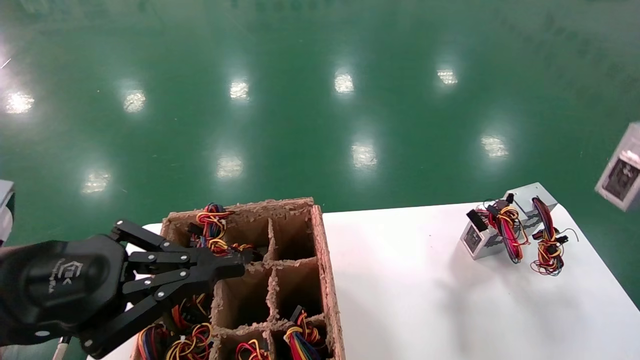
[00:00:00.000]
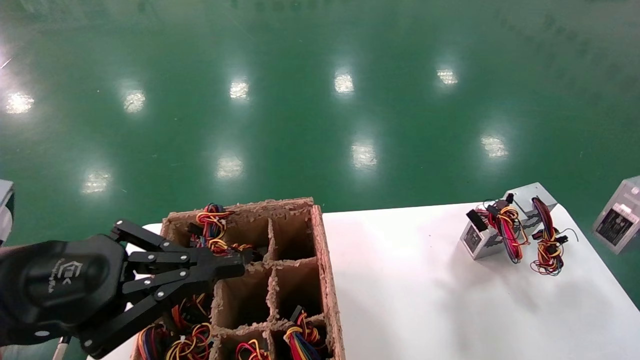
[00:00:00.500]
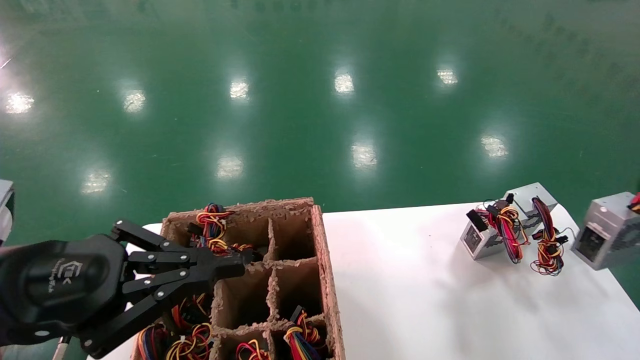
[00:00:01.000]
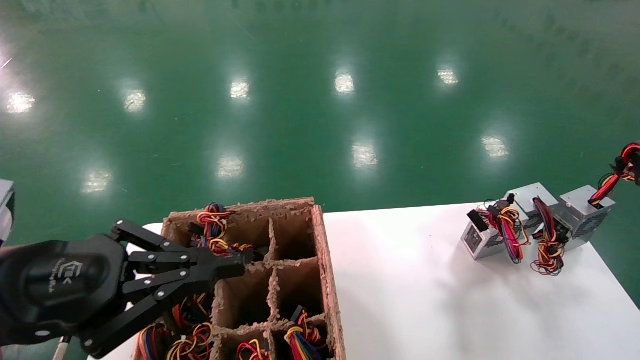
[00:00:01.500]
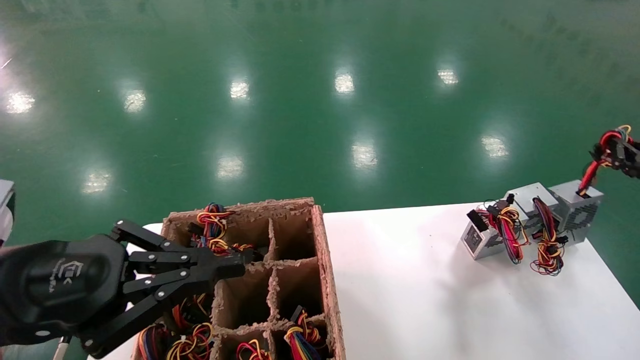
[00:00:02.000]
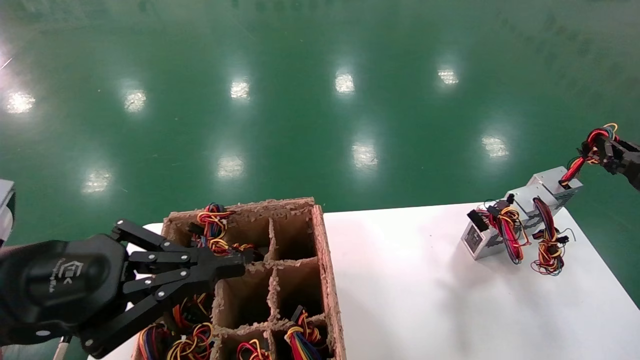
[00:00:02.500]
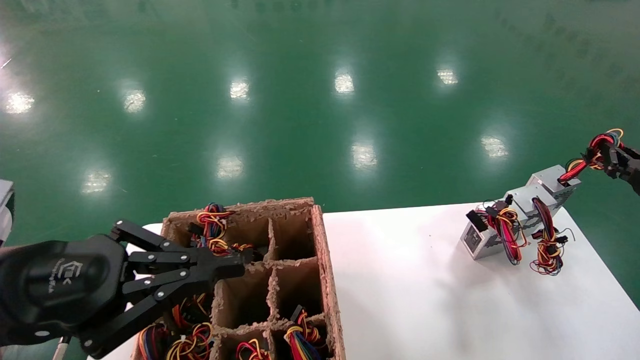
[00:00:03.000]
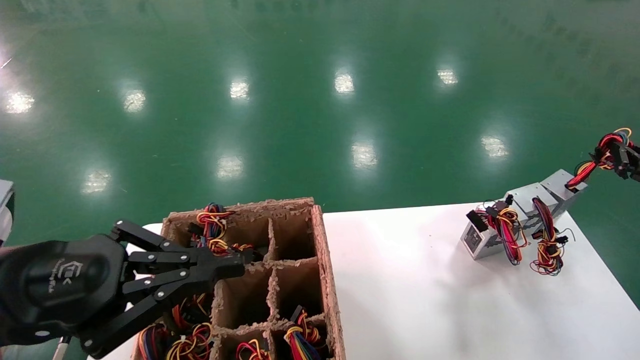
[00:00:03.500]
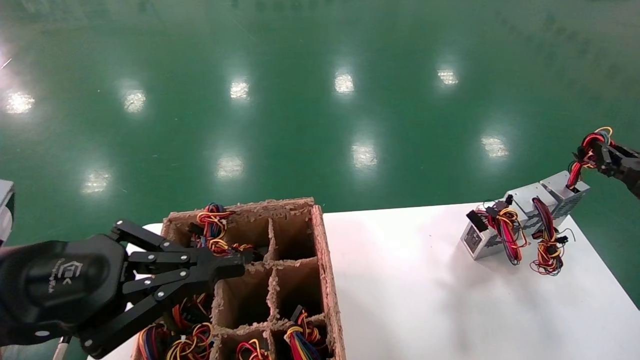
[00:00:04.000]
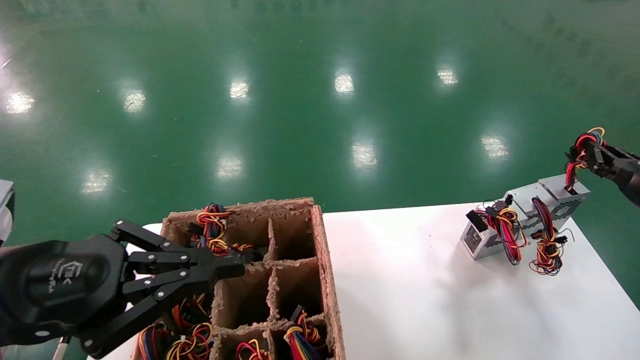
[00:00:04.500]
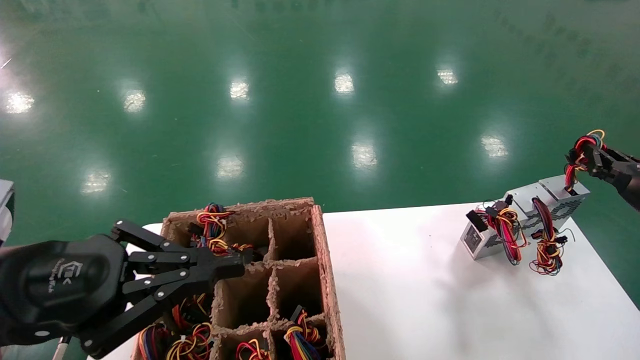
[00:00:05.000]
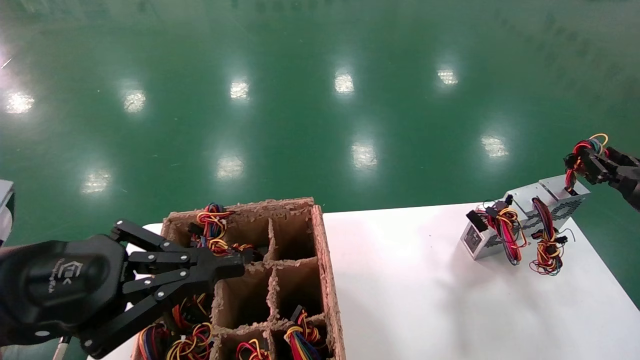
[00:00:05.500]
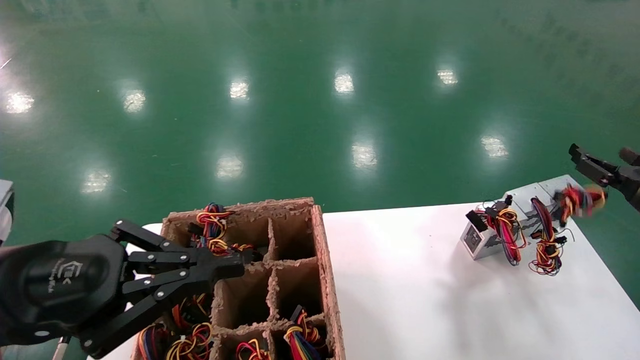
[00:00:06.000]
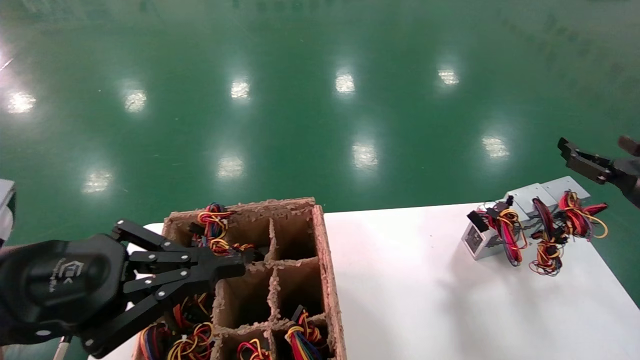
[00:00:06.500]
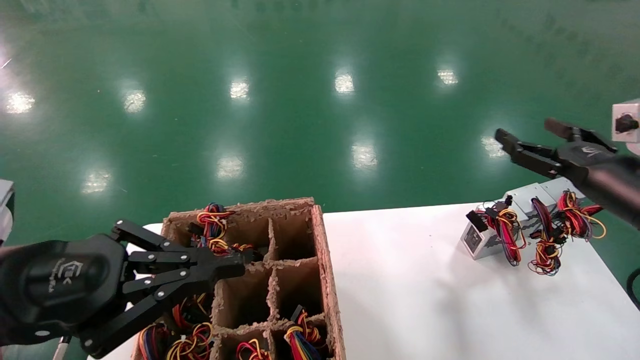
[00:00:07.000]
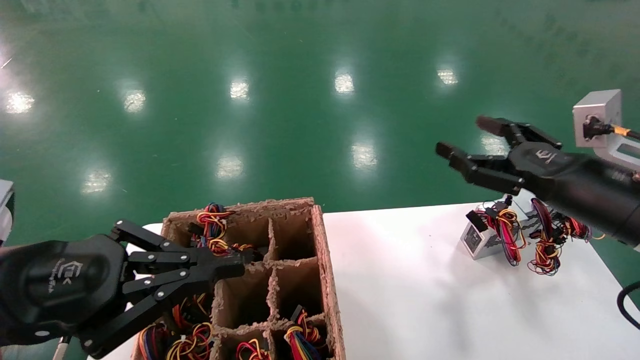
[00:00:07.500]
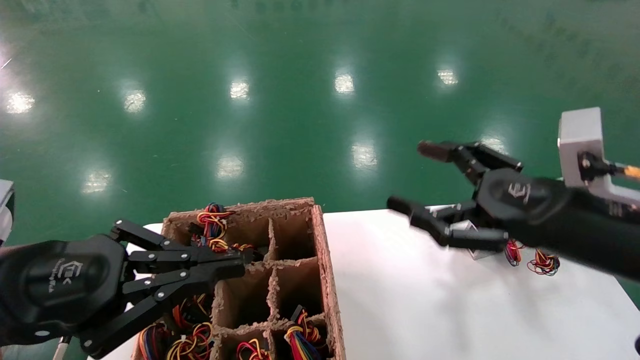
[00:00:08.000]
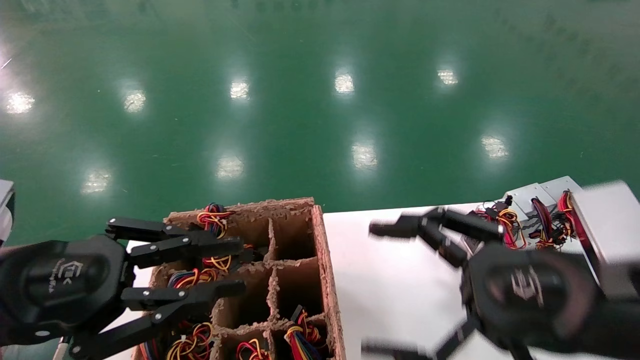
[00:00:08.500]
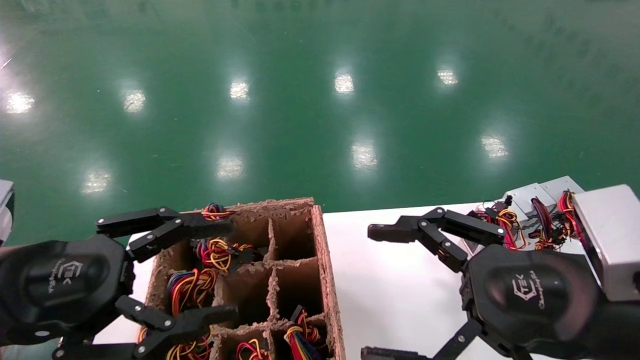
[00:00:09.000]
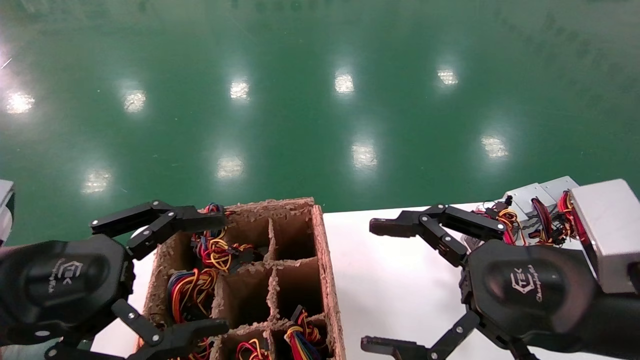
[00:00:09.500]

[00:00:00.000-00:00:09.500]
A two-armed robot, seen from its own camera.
Step, 00:00:00.000 to 00:00:06.000: Place the main unit power supply in the designated area.
00:00:00.000 to 00:00:02.000: The right gripper moves forward and downward, roughly 15 cm.
00:00:02.000 to 00:00:05.500: The grippers move only a little.
00:00:05.500 to 00:00:07.500: The right gripper shifts approximately 20 cm to the left and backward, and opens its fingers.
00:00:07.500 to 00:00:09.500: The right gripper moves backward and to the left, roughly 15 cm, while the left gripper opens.
